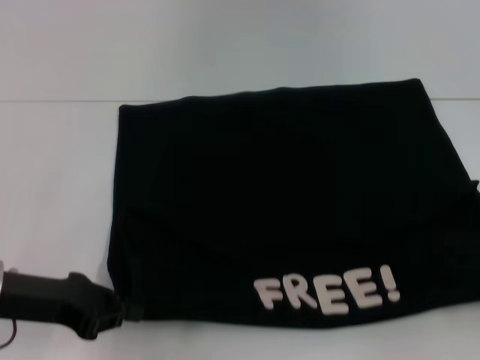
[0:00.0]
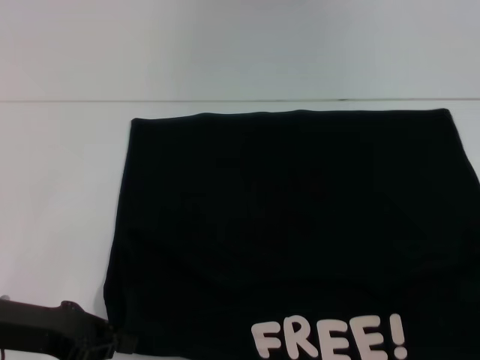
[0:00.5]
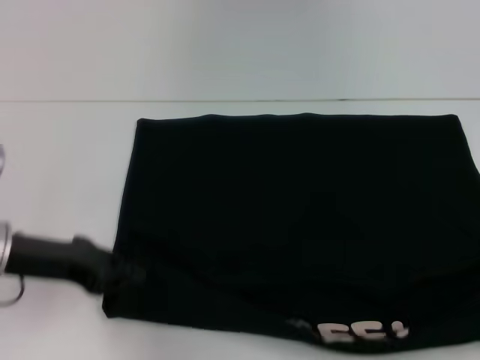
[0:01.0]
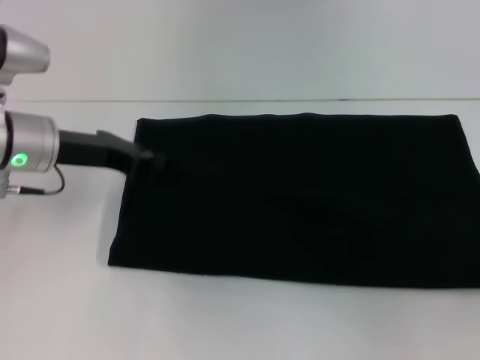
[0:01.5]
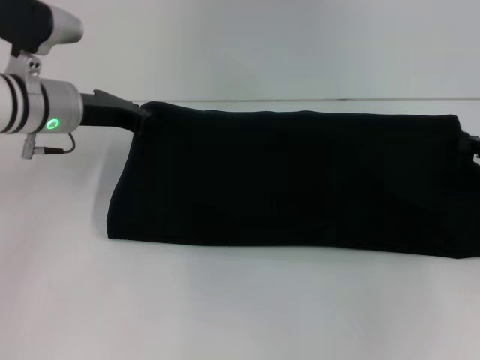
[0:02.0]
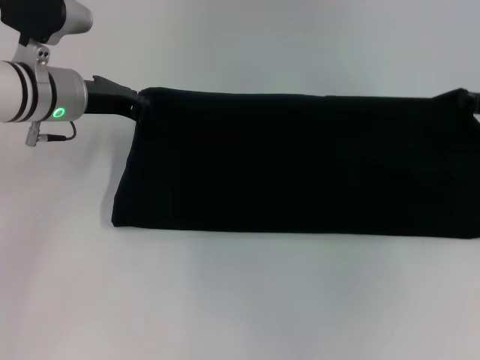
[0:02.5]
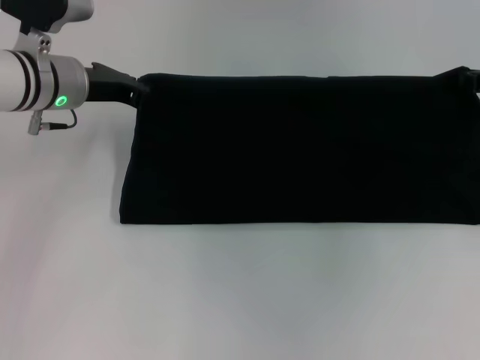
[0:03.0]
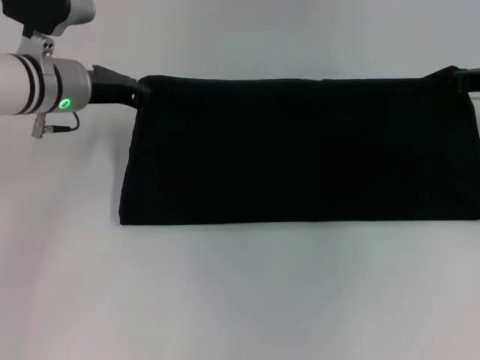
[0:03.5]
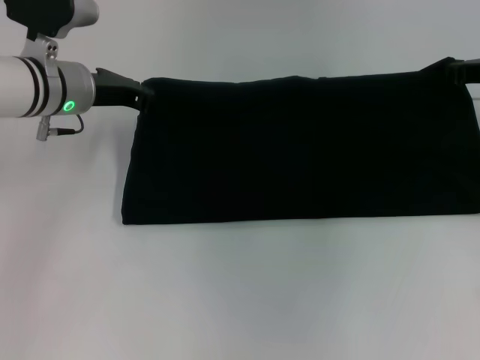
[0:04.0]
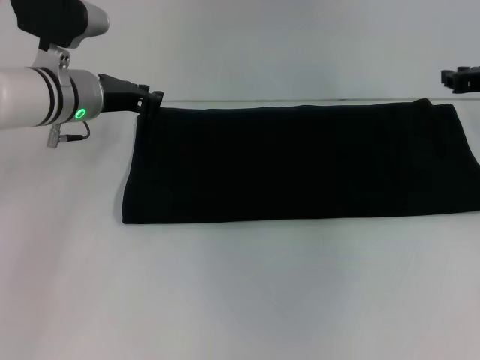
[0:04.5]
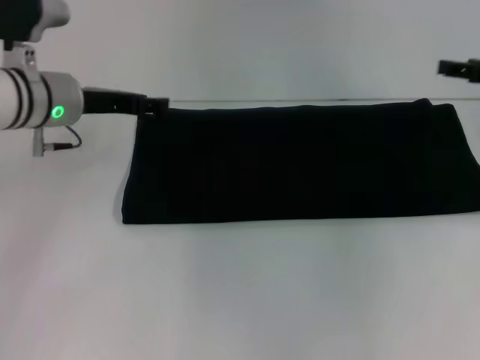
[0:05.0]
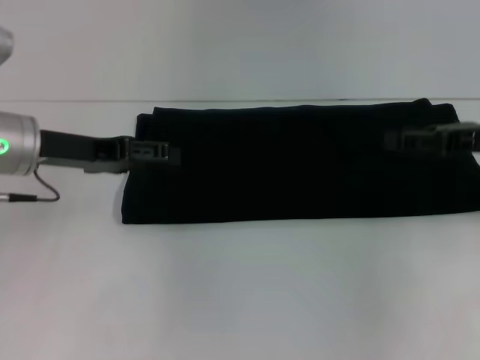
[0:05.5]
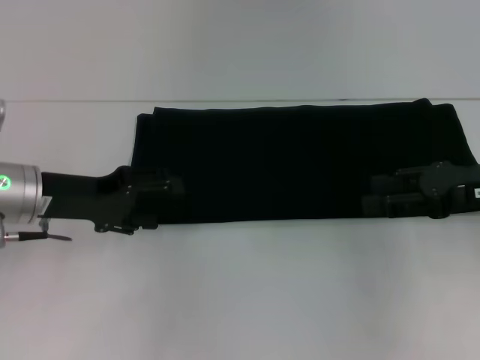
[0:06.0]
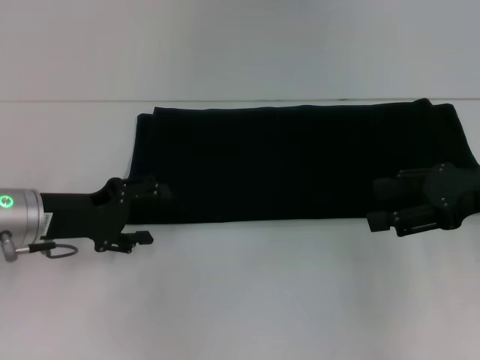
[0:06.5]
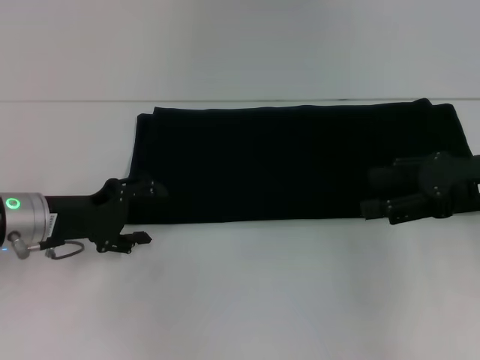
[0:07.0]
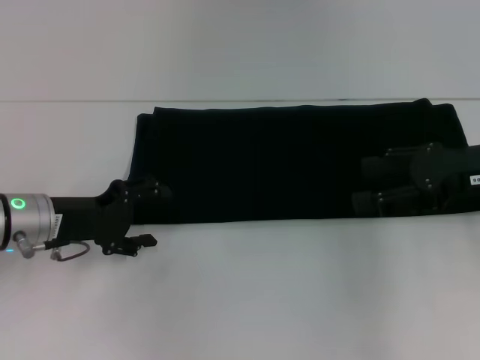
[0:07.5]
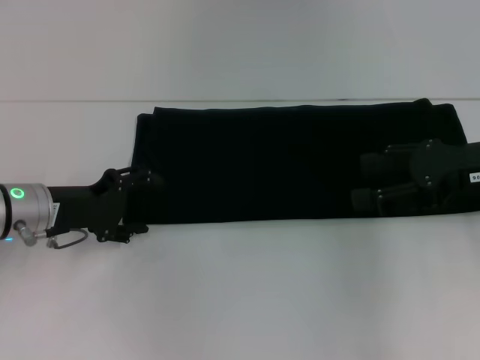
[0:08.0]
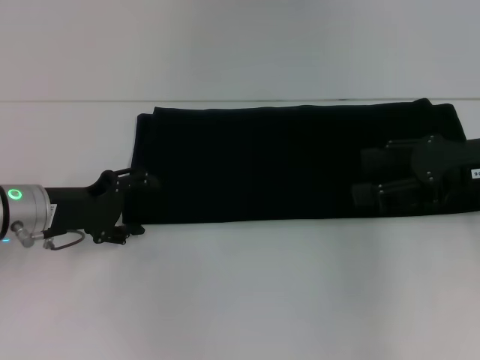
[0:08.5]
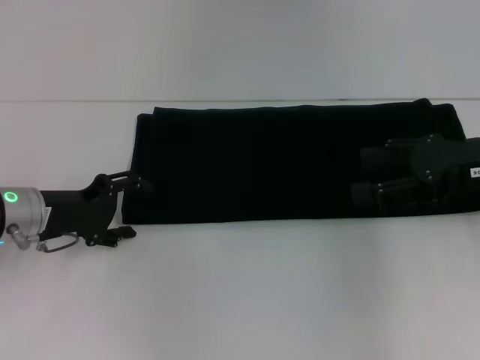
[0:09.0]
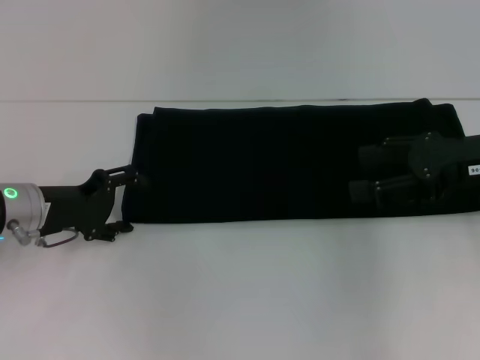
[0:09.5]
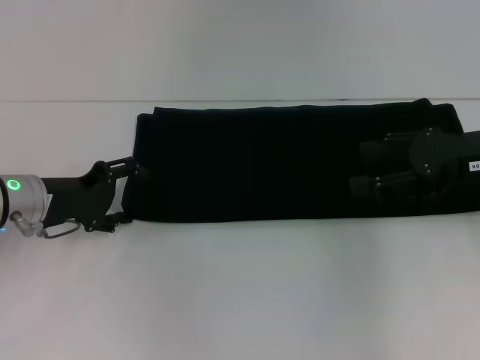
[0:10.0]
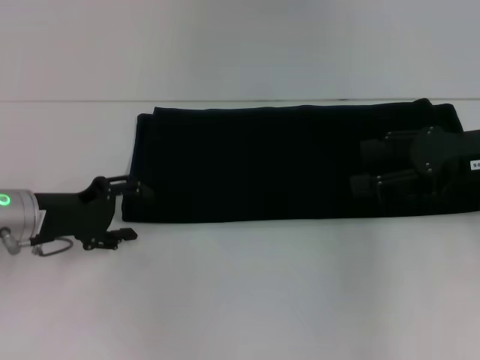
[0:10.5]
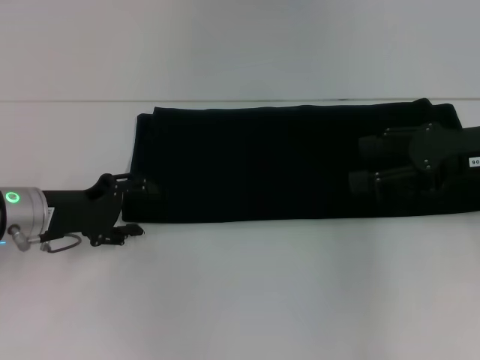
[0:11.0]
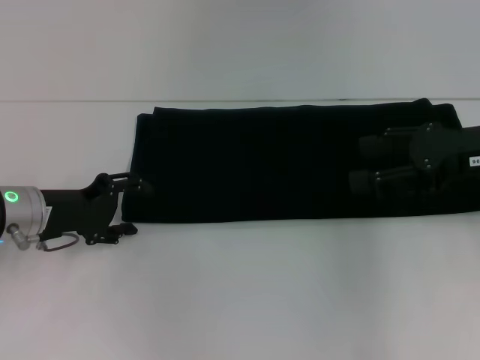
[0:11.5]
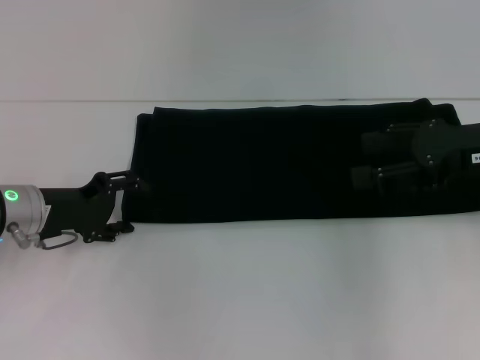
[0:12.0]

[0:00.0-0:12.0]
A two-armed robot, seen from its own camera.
Step, 0:01.0 to 0:05.5: Fold the clothes with your right hand.
0:00.0 to 0:02.0: Both grippers move forward, about 15 cm.
0:02.0 to 0:04.0: The right gripper is displaced forward by approximately 10 cm.
0:04.0 to 0:06.0: The grippers both shift backward by approximately 10 cm. The left gripper opens its fingers; the right gripper opens.
0:08.0 to 0:12.0: The grippers move only a little.

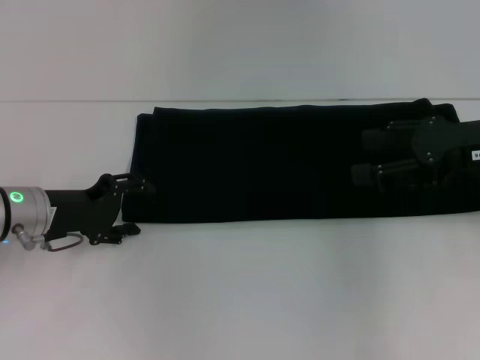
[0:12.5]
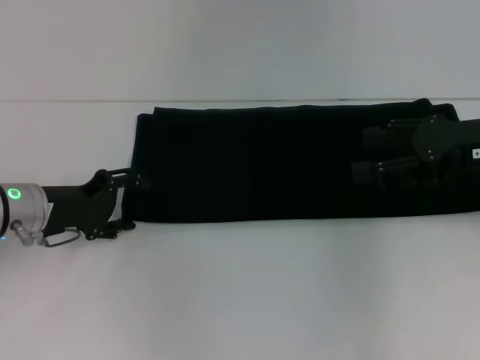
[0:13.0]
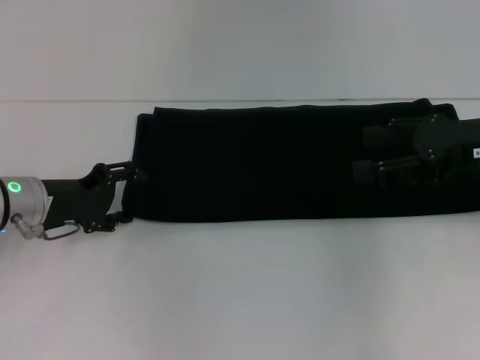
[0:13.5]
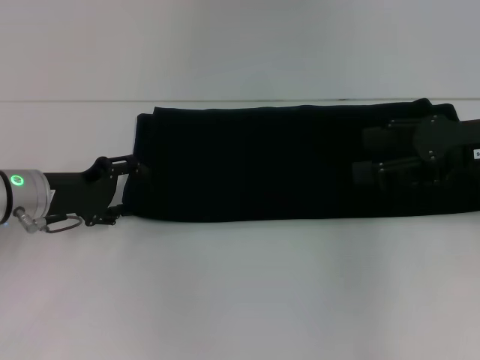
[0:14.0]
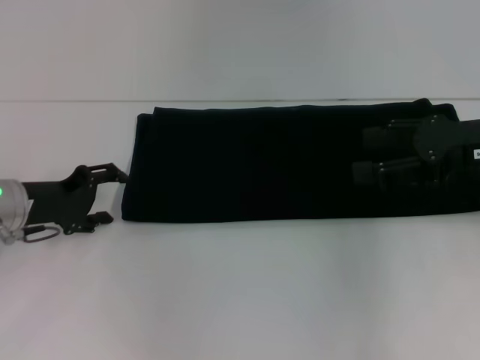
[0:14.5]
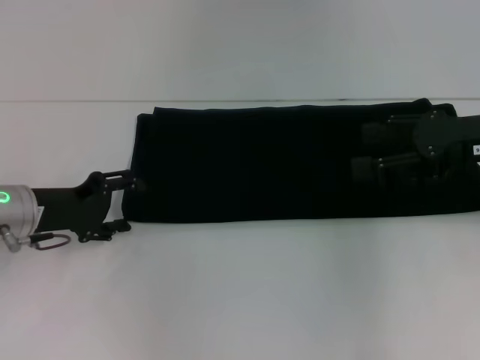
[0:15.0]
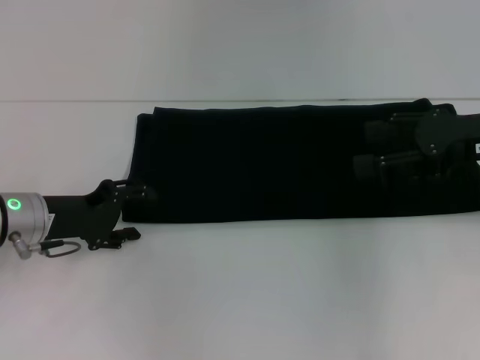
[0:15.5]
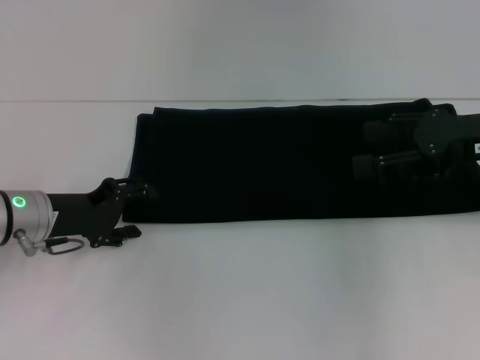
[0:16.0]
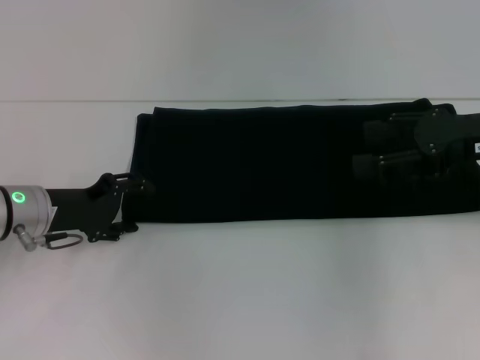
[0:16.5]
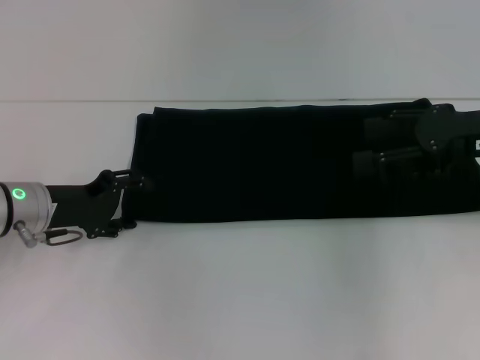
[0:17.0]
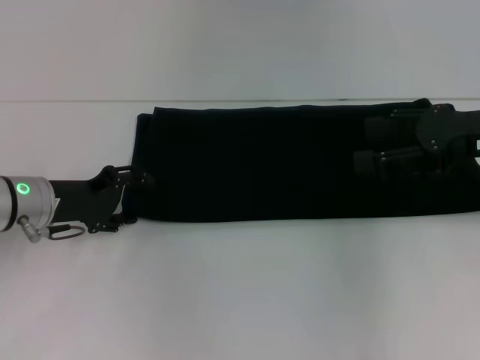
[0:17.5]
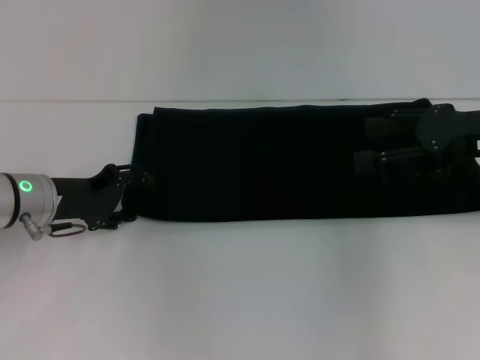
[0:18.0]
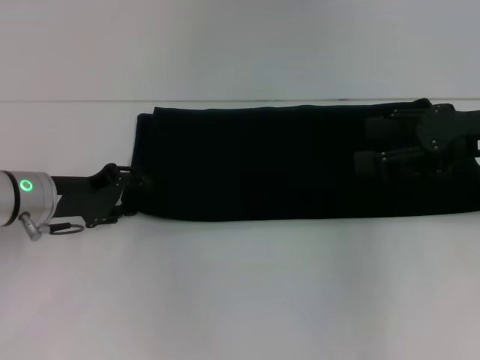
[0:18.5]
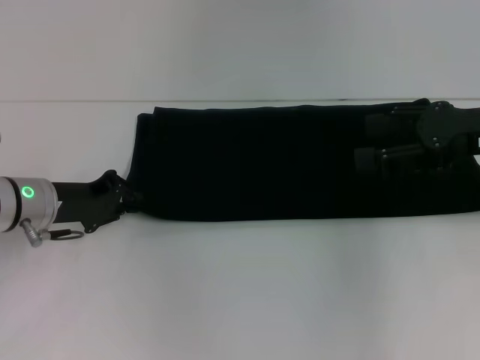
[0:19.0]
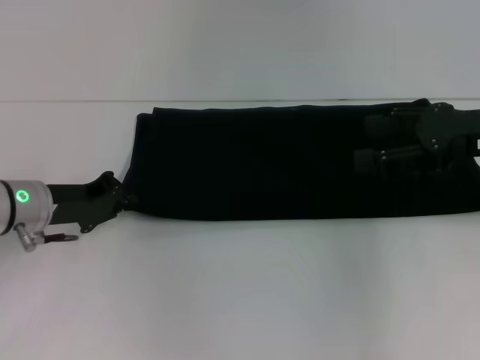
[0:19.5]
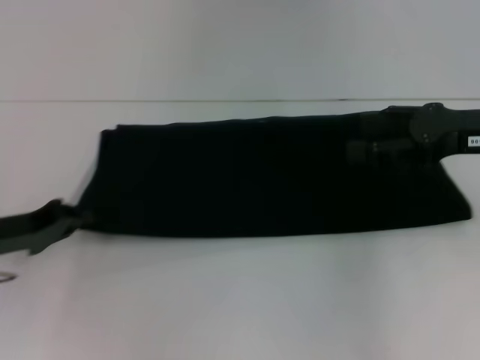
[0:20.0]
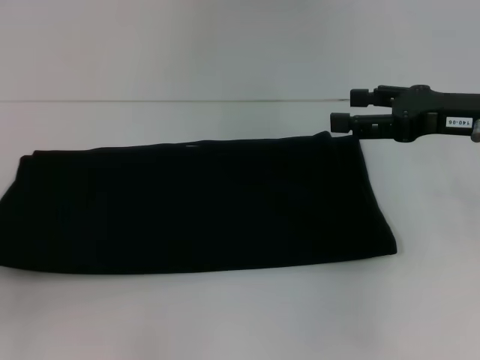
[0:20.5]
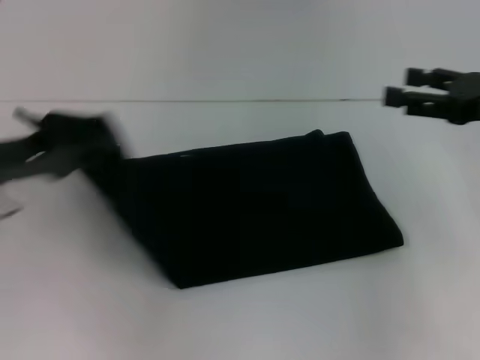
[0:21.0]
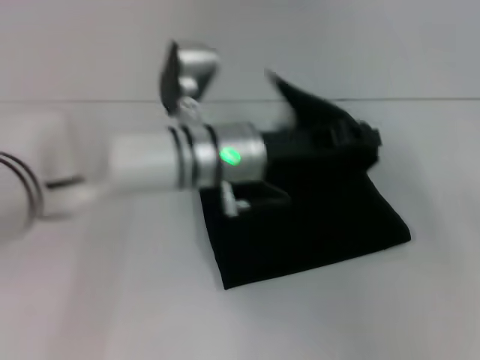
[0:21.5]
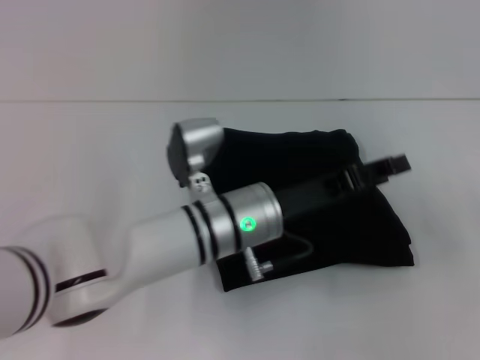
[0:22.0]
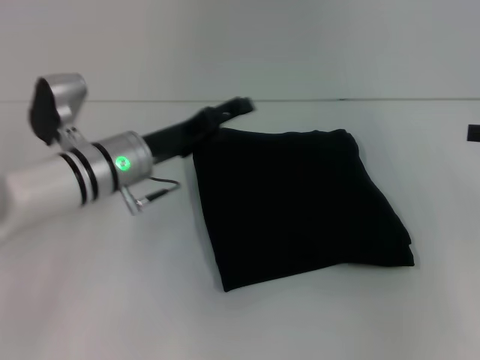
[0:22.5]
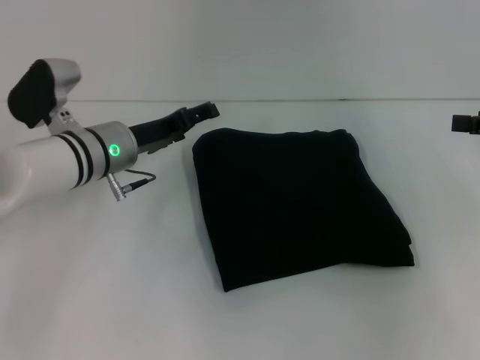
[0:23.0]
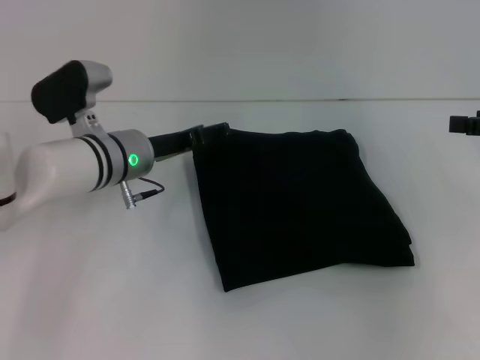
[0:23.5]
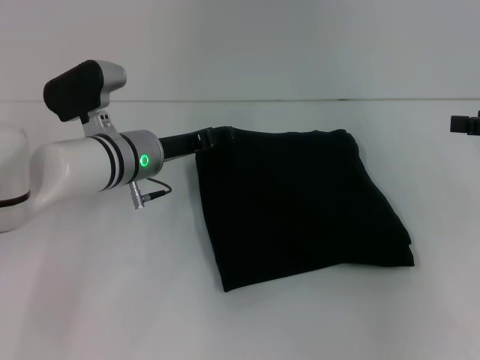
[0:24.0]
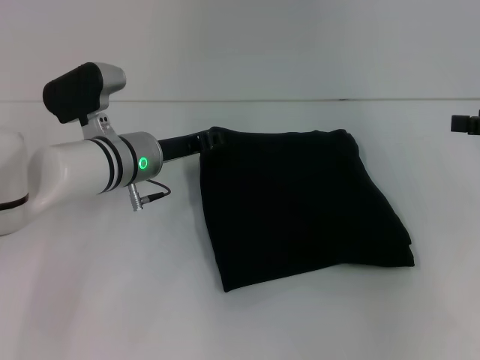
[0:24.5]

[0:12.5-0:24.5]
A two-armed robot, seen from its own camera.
0:12.5 to 0:18.5: The grippers move only a little.
0:18.5 to 0:20.5: The left gripper is displaced to the left and backward by about 20 cm, and closes up.
0:20.5 to 0:22.5: The right gripper shifts some 10 cm to the right. The left gripper goes some 30 cm to the right and forward, and opens.

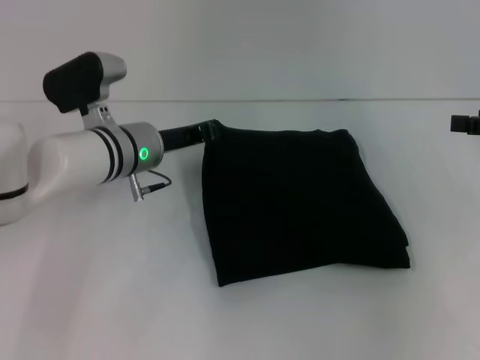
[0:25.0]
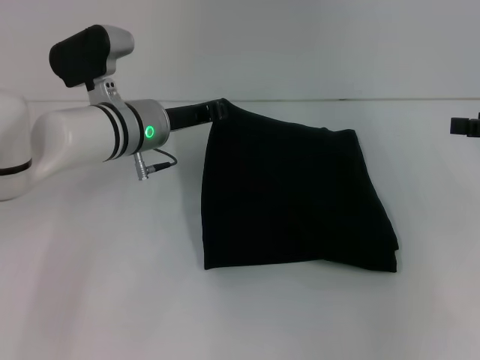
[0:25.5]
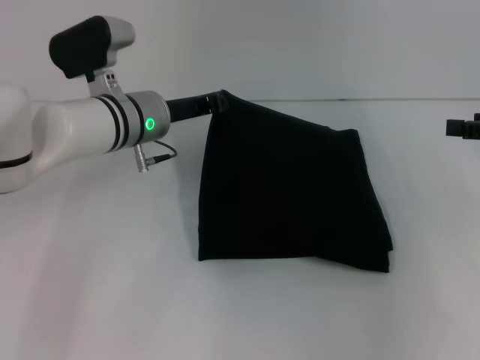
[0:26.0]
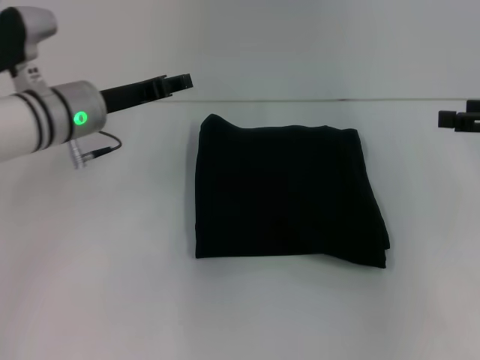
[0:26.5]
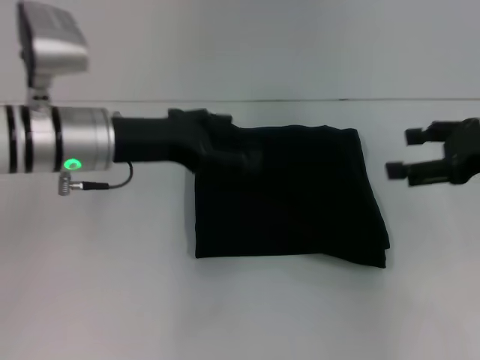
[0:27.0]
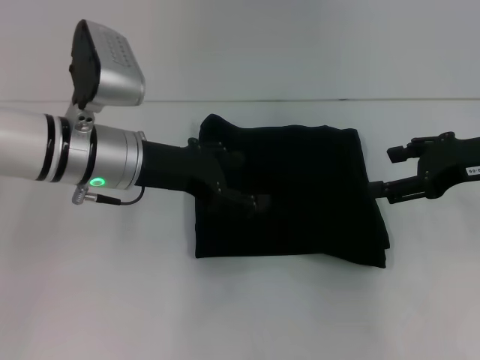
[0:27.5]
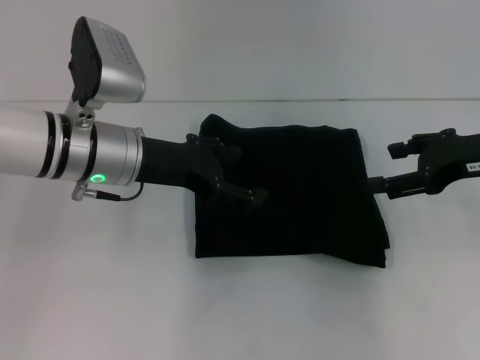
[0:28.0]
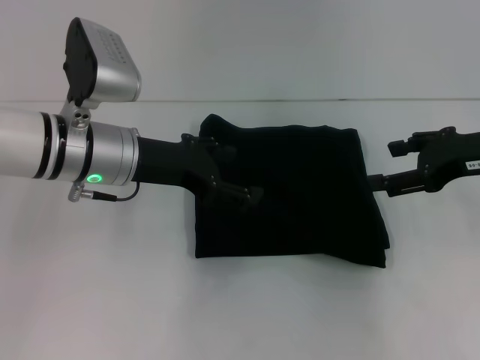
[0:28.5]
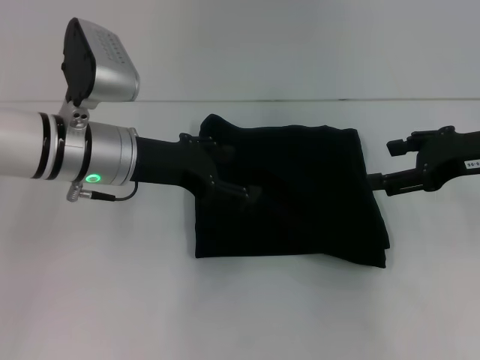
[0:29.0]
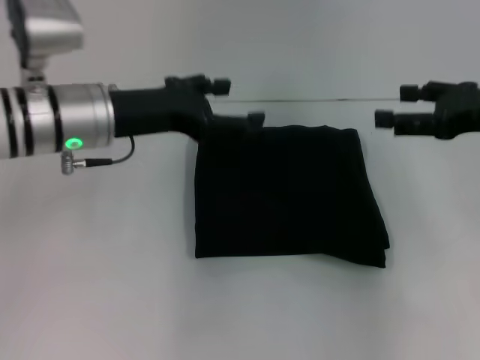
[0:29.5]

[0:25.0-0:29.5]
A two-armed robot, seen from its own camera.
Step, 0:25.0 to 0:29.0: Fold the clothes with your left hand.
0:25.0 to 0:27.0: The left gripper goes approximately 10 cm upward and backward, and opens up. Meanwhile the right gripper moves to the left, about 5 cm.
0:27.0 to 0:29.5: The grippers stay close to where they were, moving slightly.
